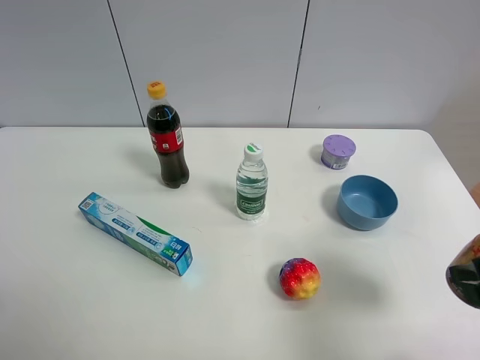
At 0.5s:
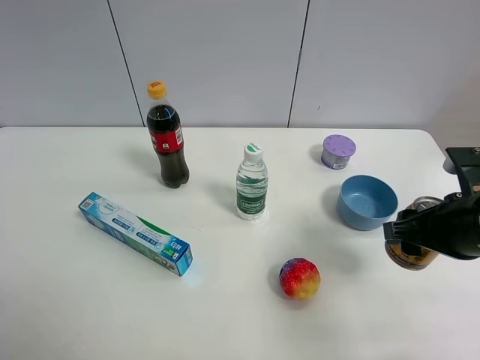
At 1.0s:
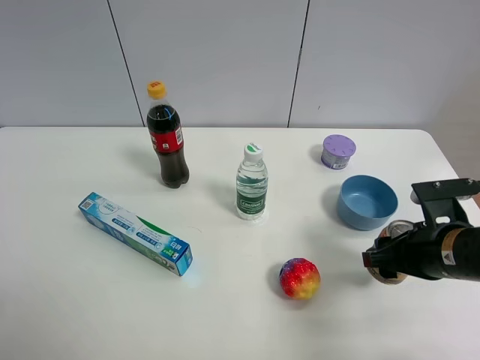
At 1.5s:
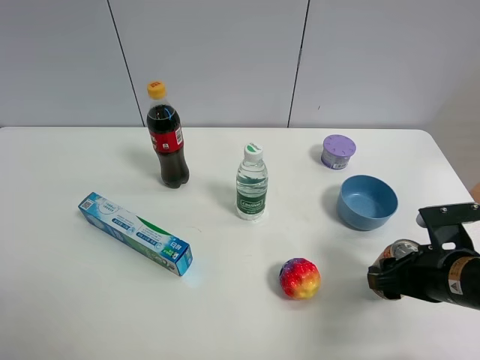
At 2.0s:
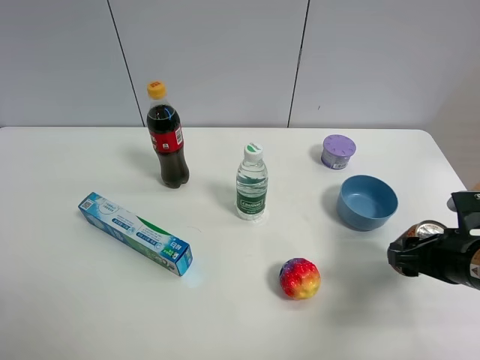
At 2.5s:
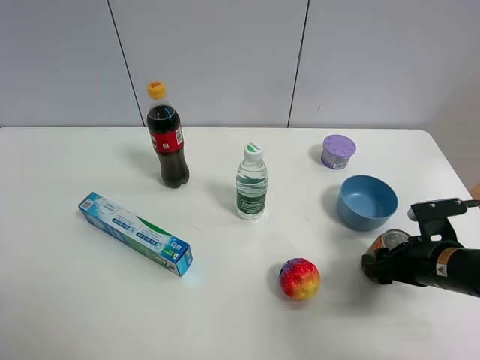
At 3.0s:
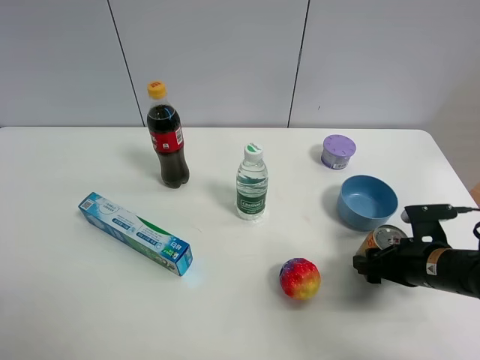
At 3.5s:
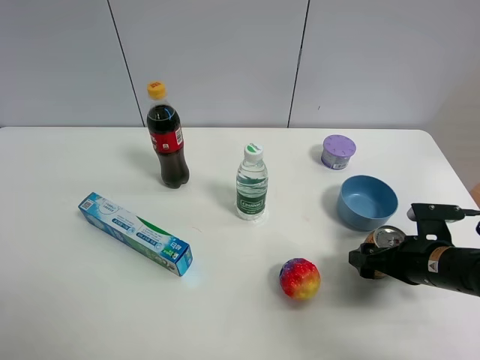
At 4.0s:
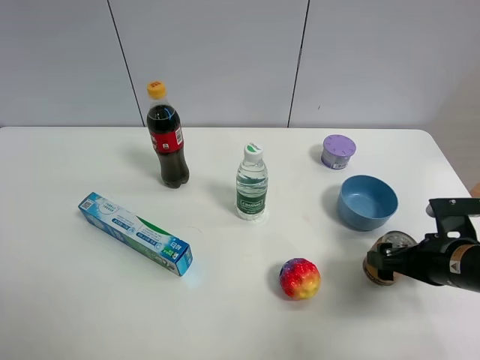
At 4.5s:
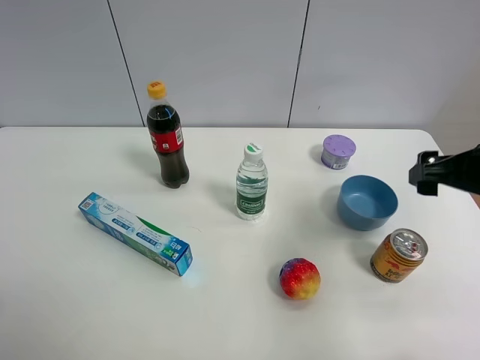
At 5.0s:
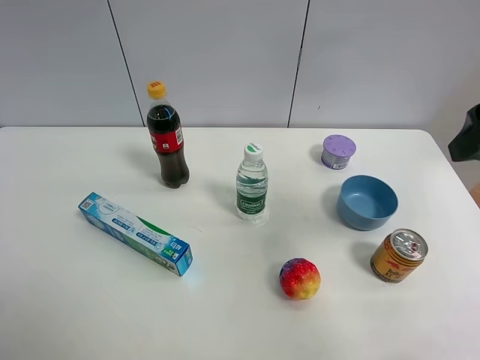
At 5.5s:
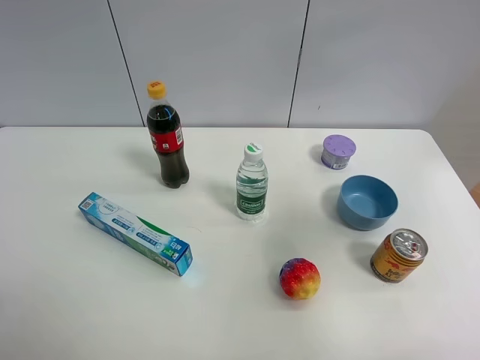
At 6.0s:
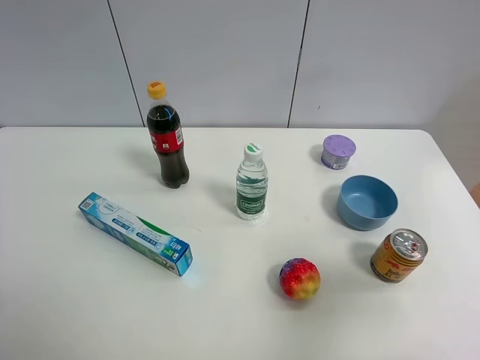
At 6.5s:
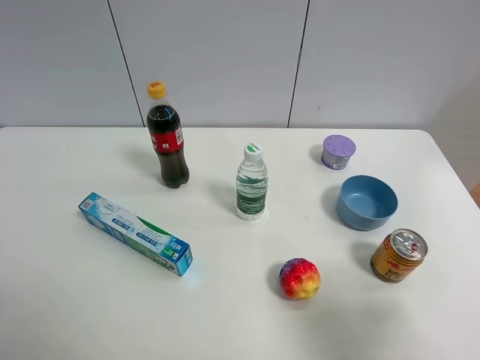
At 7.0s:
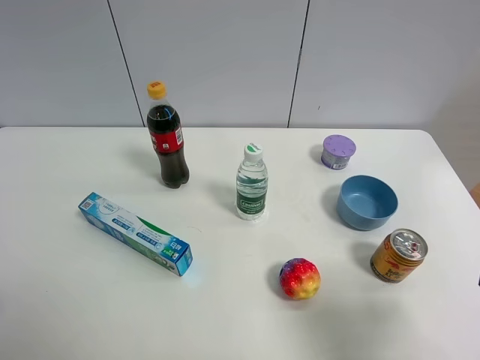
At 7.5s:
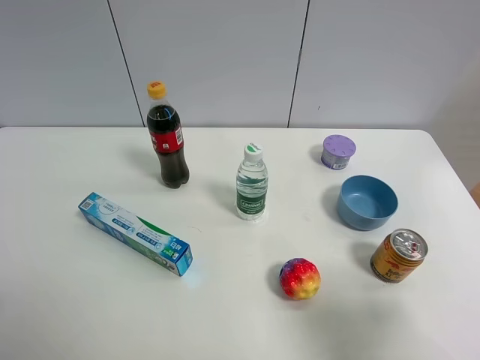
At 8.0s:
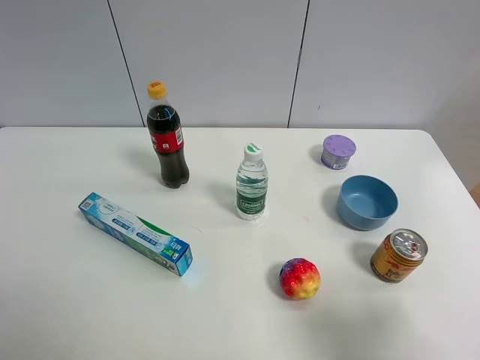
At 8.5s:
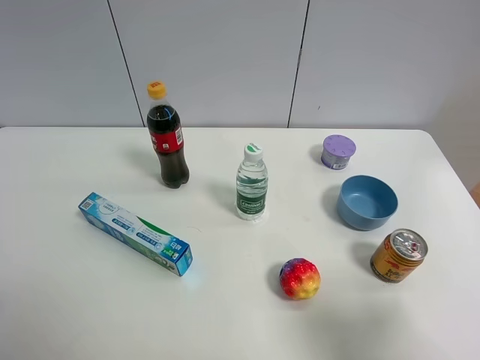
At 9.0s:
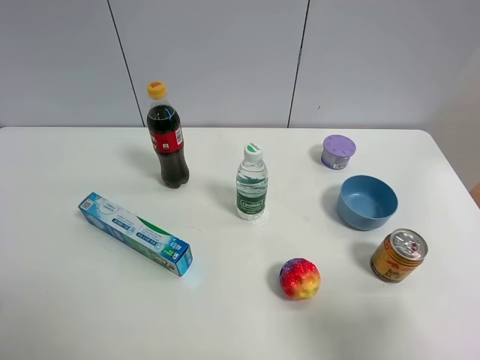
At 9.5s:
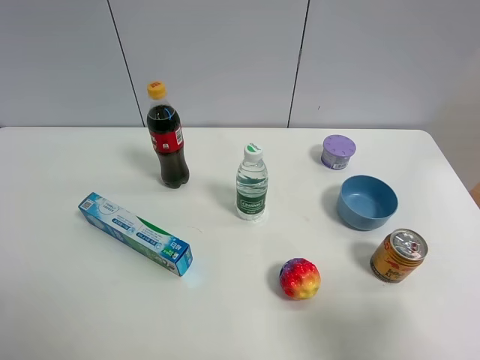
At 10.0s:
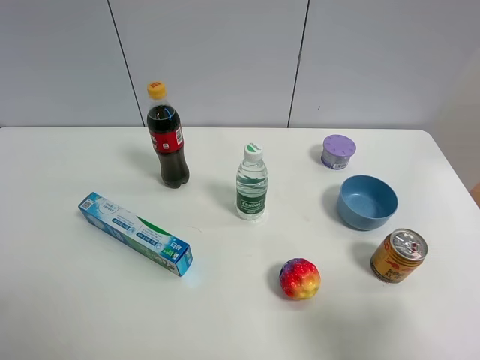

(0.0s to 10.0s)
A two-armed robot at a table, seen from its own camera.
Task of the whole recording: the gripper move the object.
Step, 0.0s - 4.0s: Place the red bull on the table with the right gripper.
0.0s - 2.0s: The right gripper travels downward and forward by roughly 15 cm.
2.0s - 4.0s: The right gripper opens.
4.0s - 6.0s: The right gripper moves upward and backward, approximately 25 cm.
6.0s - 8.0s: The right gripper goes roughly 10 cm downward.
8.0s - 10.0s: Neither gripper changes place.

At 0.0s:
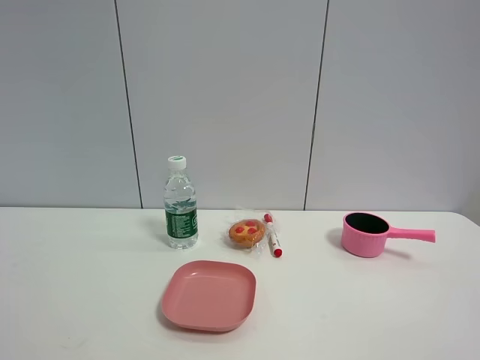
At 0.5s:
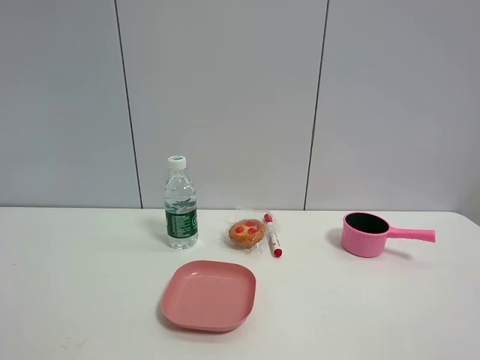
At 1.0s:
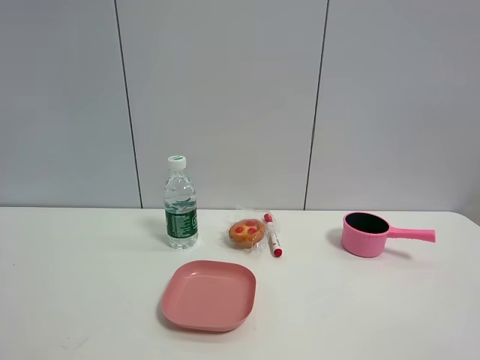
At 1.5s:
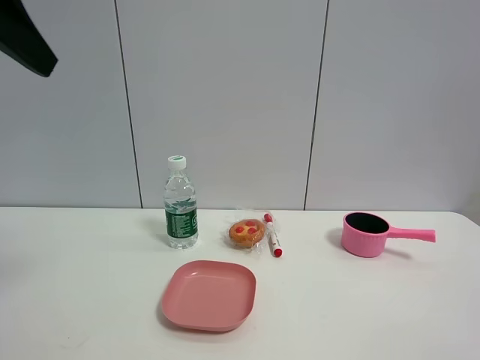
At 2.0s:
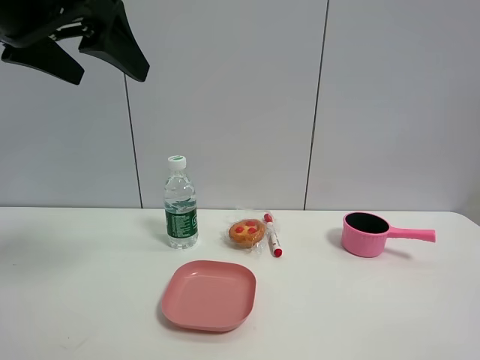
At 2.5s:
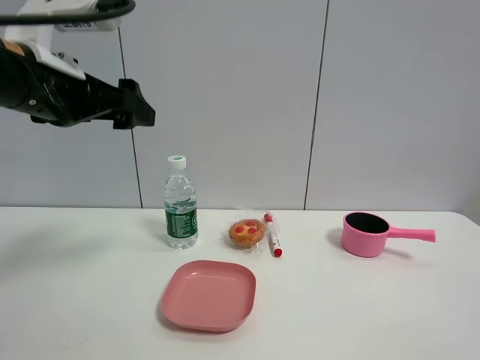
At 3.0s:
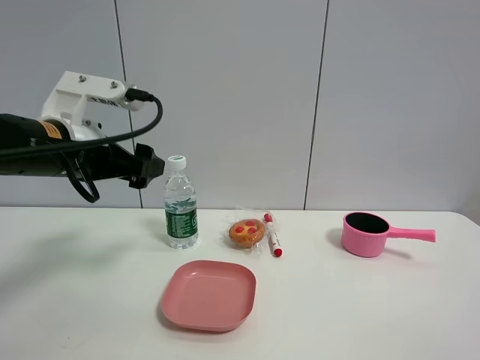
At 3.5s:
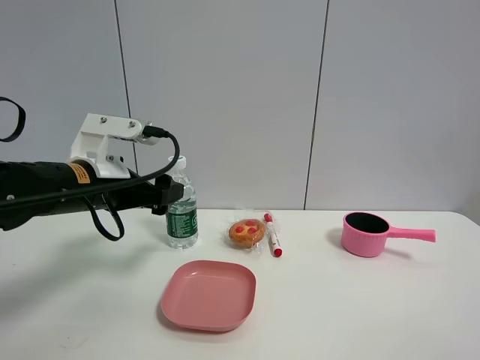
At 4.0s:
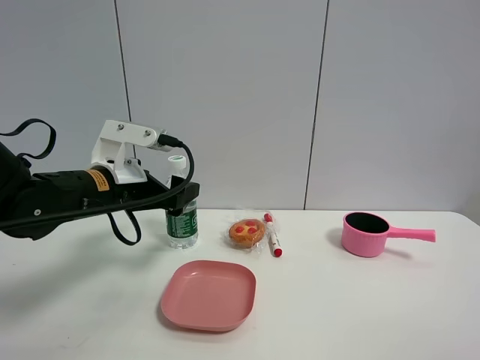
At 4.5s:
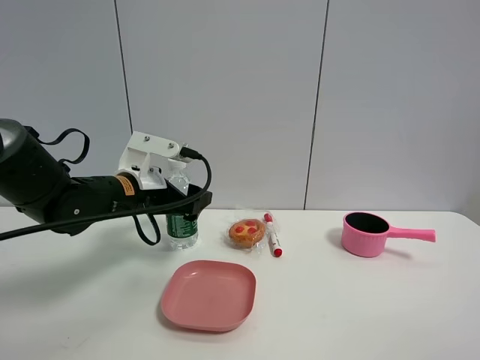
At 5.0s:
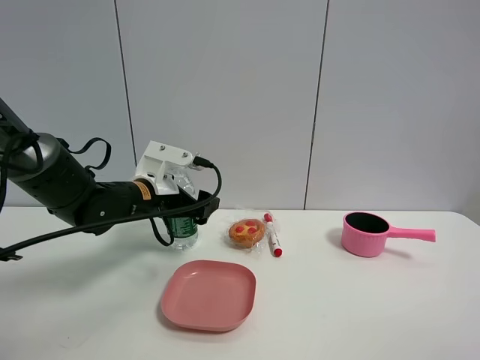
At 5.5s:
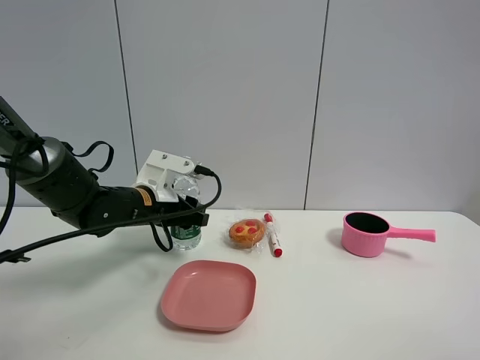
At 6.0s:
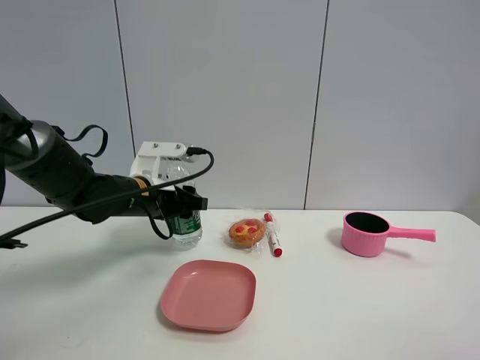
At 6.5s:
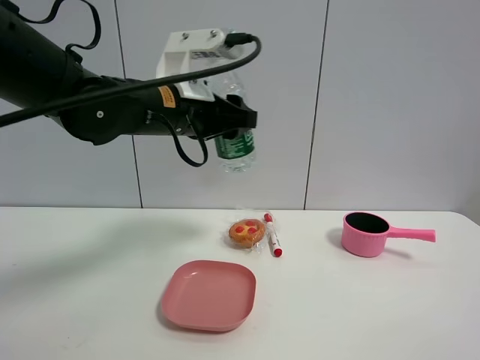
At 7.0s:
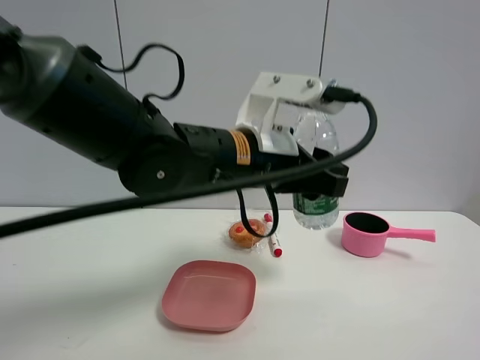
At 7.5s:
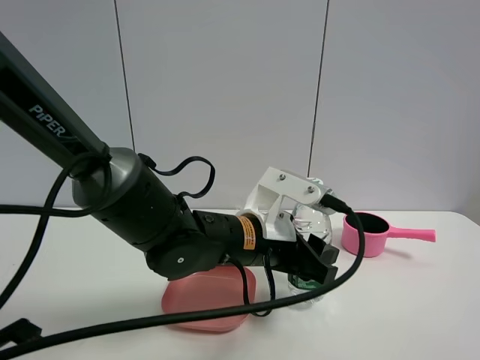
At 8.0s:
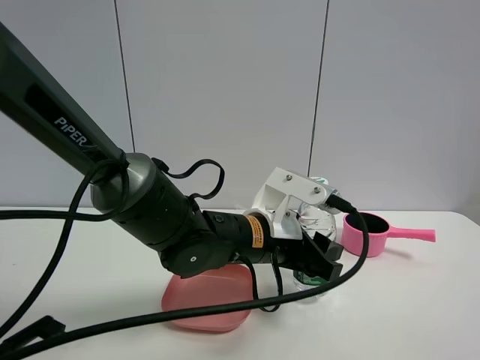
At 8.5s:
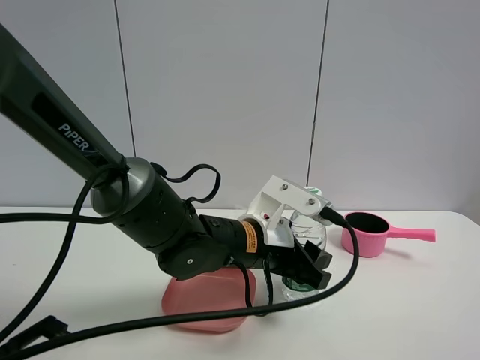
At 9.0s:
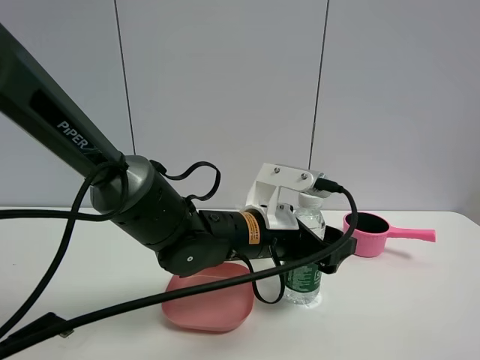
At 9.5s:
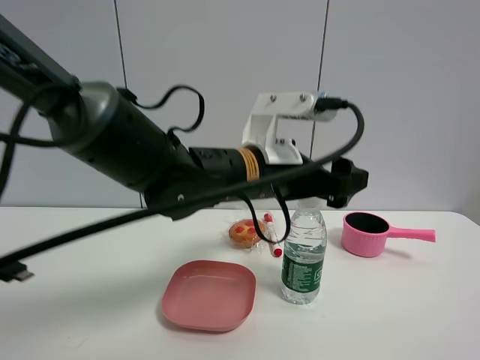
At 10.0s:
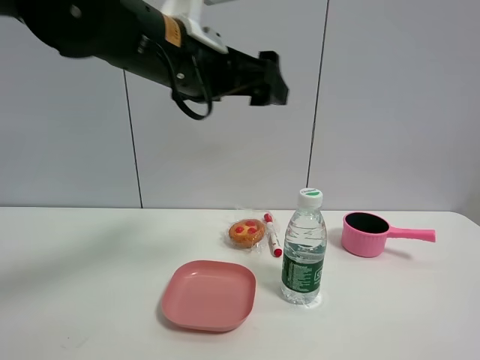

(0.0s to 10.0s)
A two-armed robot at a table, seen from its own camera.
Task of the whole recording: the gripper move the object.
Step, 0.0s - 5.5s: Grasp the YiBao mineral water with the left gripper.
Step, 6.0s - 9.0s: Place the YiBao mineral water on the table with the left gripper.
0.0s - 2.0s: The left gripper goes roughly 30 cm forward and to the right.
2.0s - 4.0s: The left gripper moves downward, roughly 20 cm.
4.0s - 6.0s: The left gripper heads forward, covering roughly 5 cm, and closes its fingers.
6.0s - 8.0s: The left gripper travels to the right and backward by approximately 20 cm.
8.0s - 10.0s: The left gripper shifts roughly 25 cm upward and to the left, and opens.

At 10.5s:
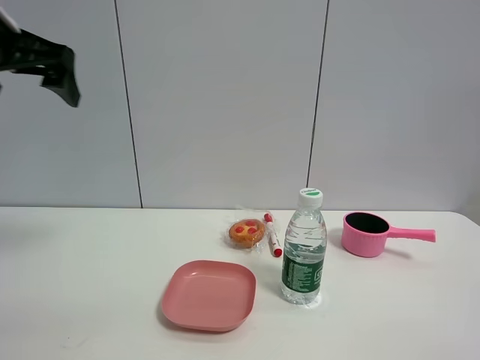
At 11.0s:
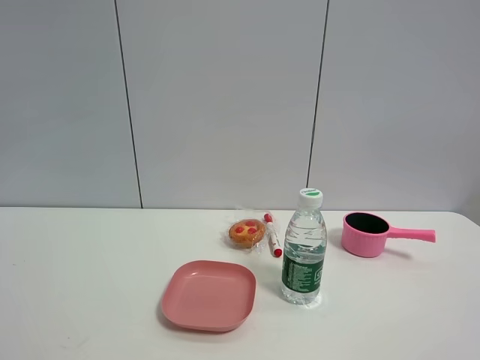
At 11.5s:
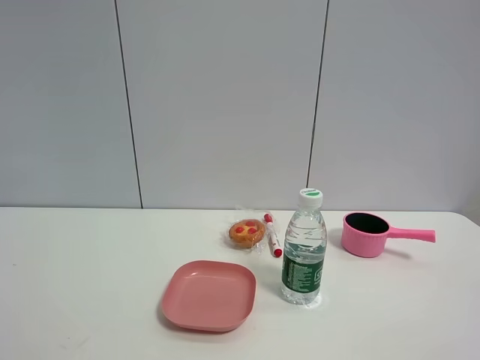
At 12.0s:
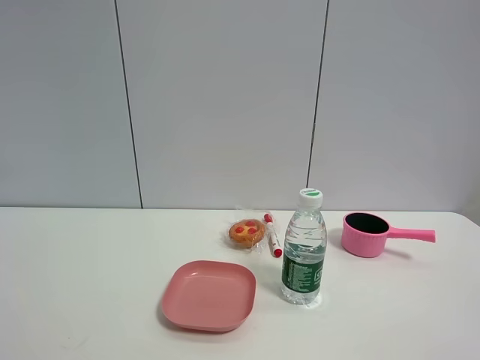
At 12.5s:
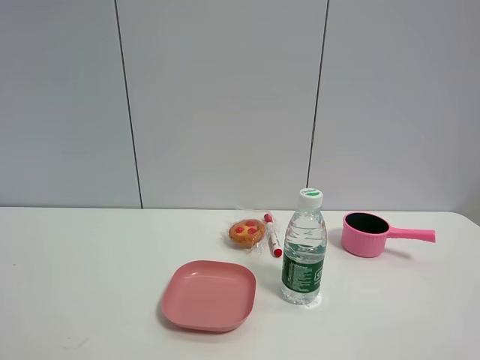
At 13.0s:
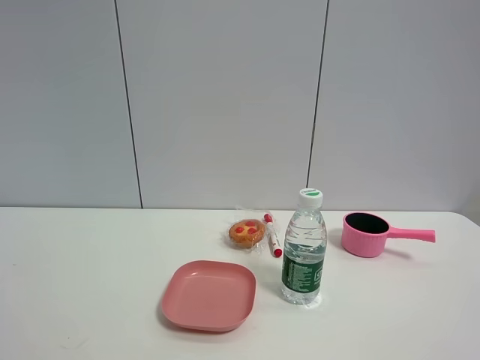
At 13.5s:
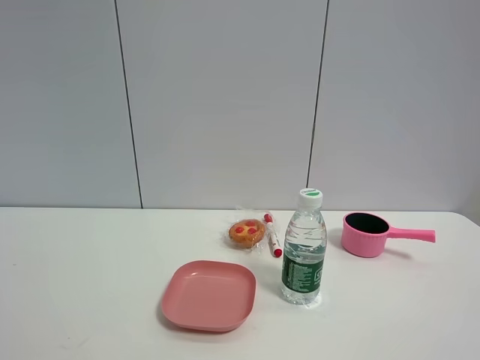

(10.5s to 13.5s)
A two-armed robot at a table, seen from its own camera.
Task of the whole recording: the gripper move the object.
10.5s - 12.0s: The left gripper heads backward, covering some 30 cm.

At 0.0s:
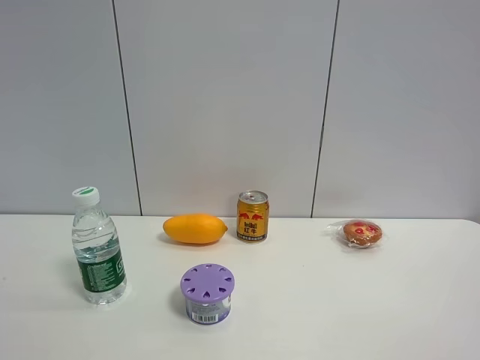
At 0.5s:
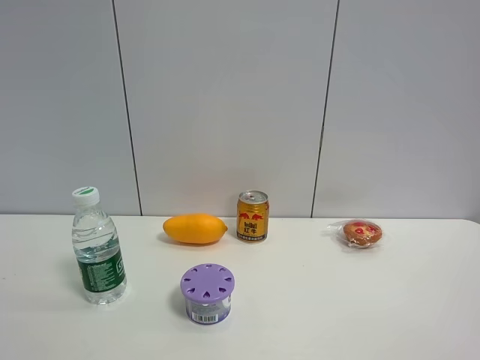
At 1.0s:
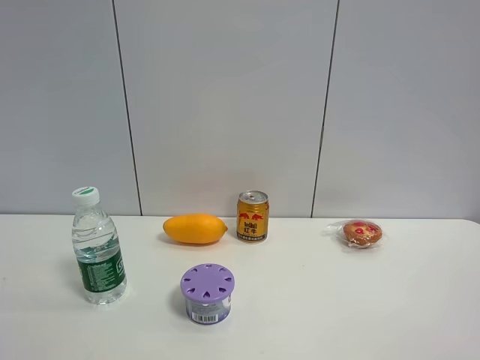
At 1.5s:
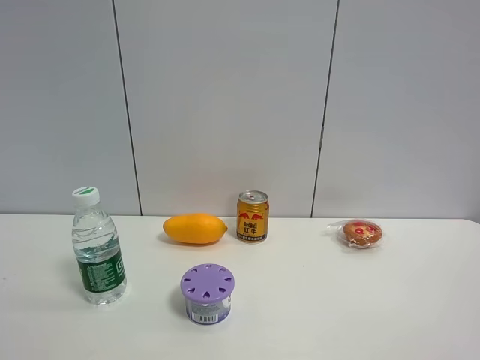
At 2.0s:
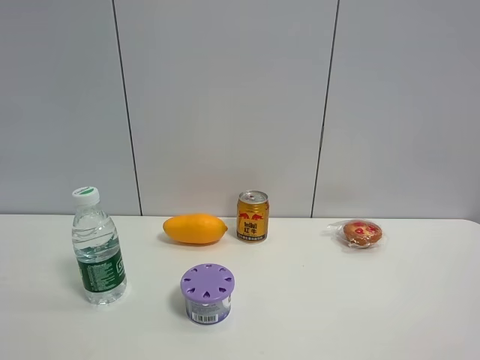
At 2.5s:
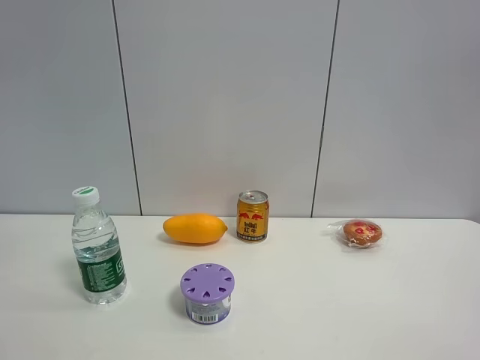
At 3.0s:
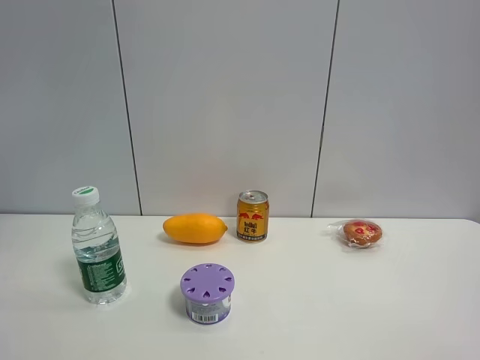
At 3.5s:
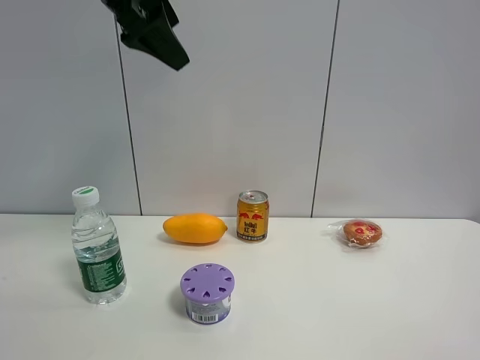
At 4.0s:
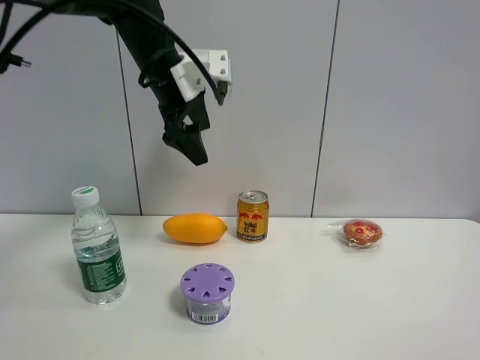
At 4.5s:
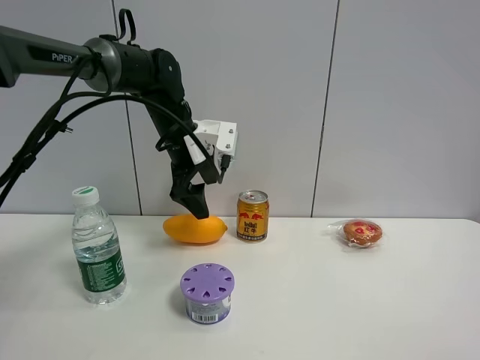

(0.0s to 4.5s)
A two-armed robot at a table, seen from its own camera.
Task of the whole recording: the gripper move the object.
2.0s - 4.5s: The left gripper heads forward, downward and to the right, covering some 50 cm.
